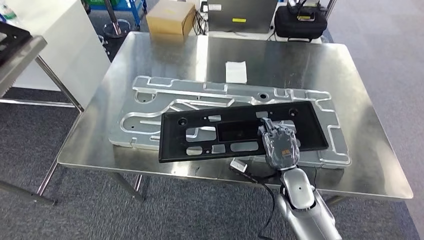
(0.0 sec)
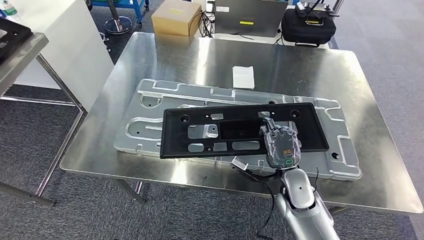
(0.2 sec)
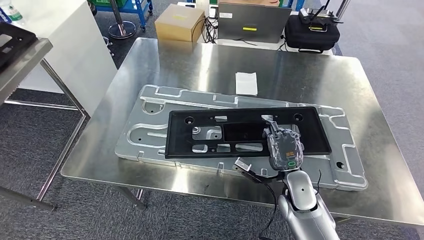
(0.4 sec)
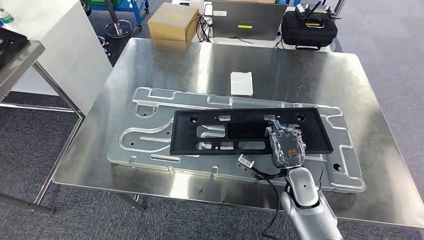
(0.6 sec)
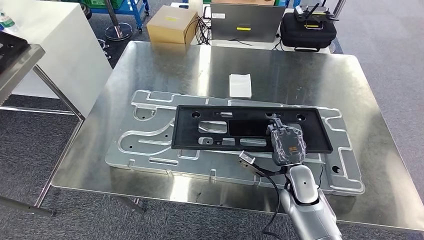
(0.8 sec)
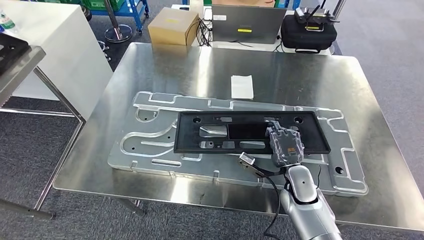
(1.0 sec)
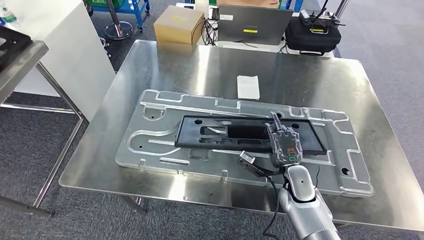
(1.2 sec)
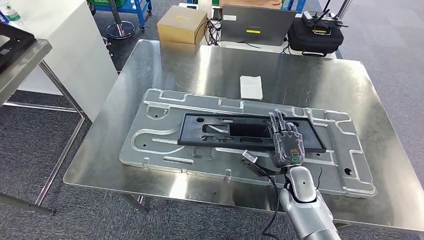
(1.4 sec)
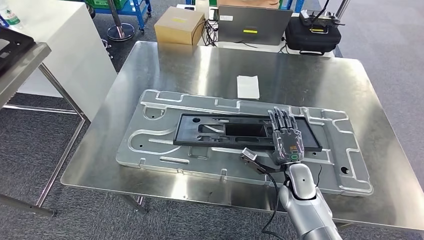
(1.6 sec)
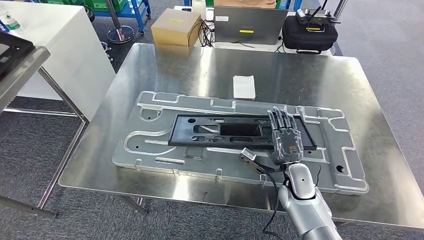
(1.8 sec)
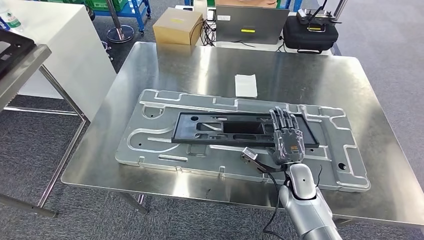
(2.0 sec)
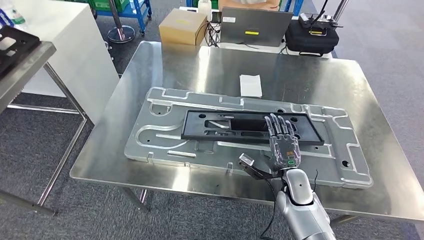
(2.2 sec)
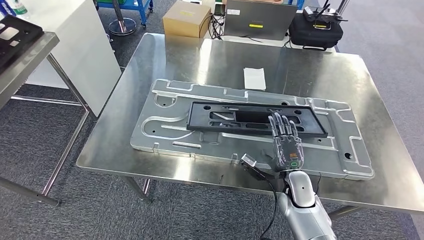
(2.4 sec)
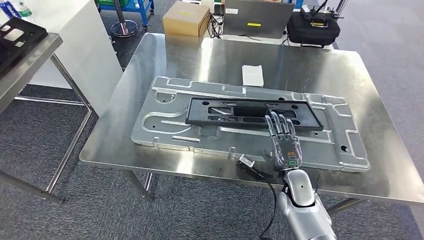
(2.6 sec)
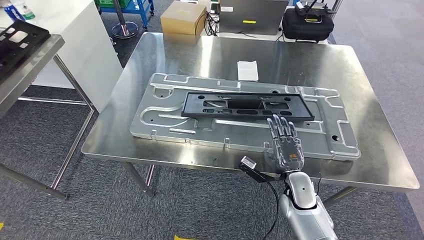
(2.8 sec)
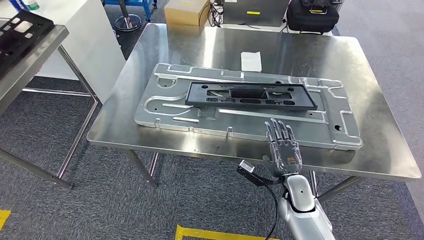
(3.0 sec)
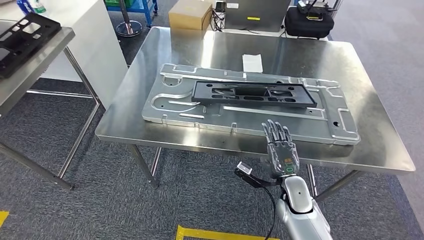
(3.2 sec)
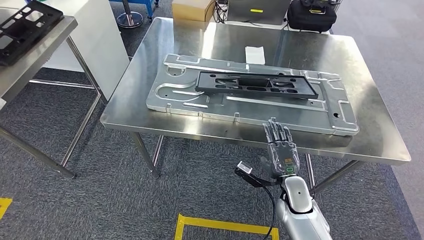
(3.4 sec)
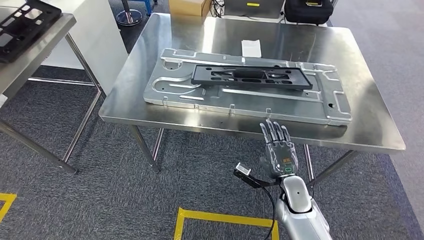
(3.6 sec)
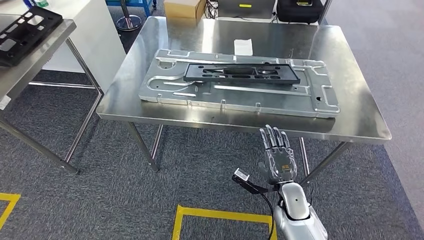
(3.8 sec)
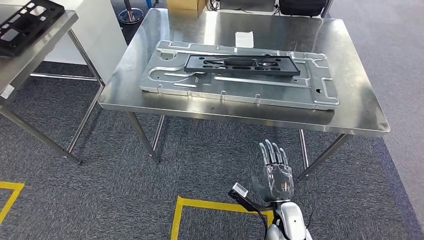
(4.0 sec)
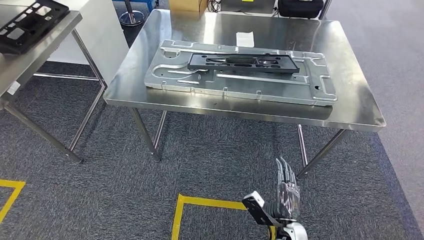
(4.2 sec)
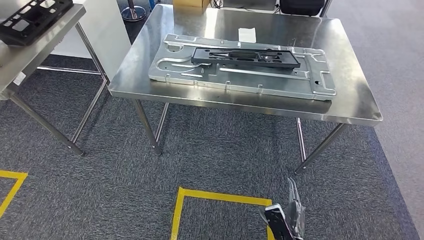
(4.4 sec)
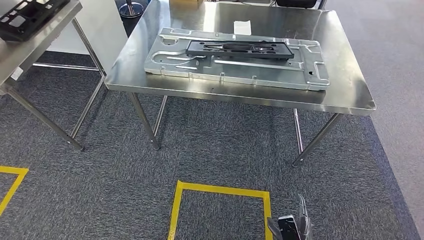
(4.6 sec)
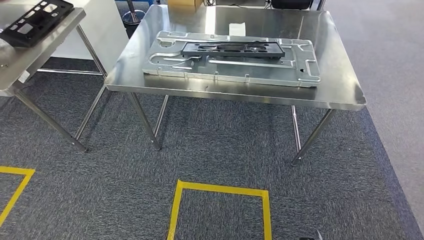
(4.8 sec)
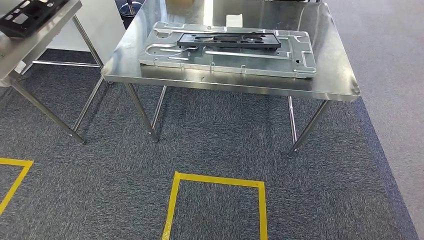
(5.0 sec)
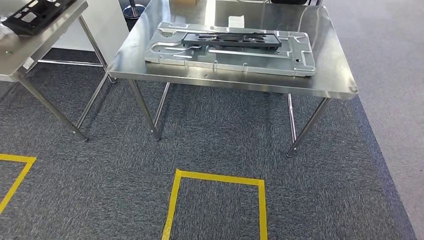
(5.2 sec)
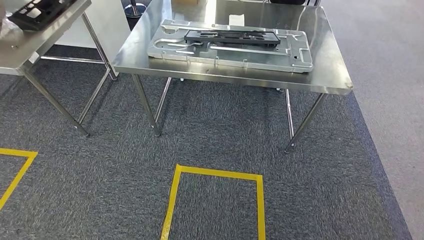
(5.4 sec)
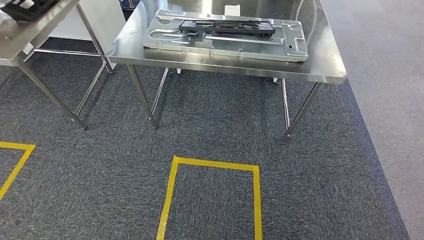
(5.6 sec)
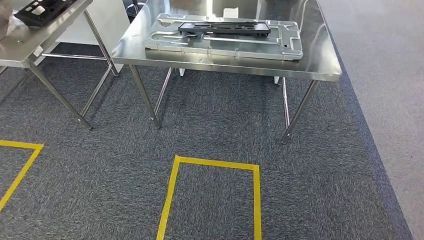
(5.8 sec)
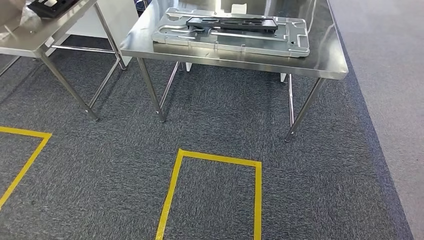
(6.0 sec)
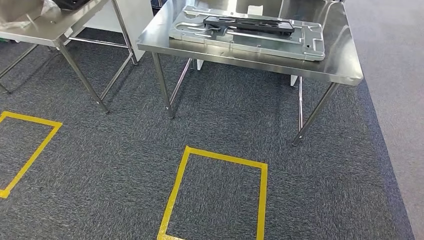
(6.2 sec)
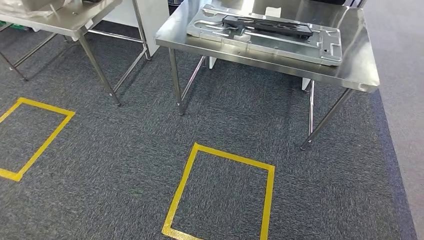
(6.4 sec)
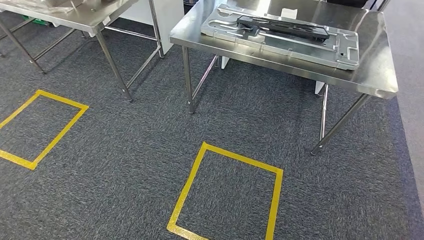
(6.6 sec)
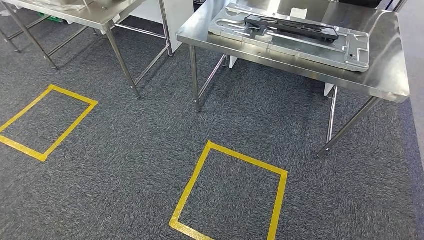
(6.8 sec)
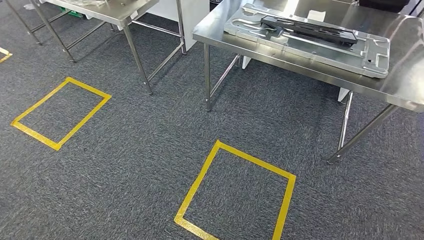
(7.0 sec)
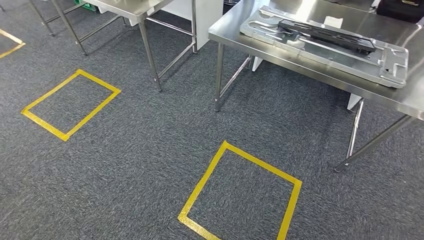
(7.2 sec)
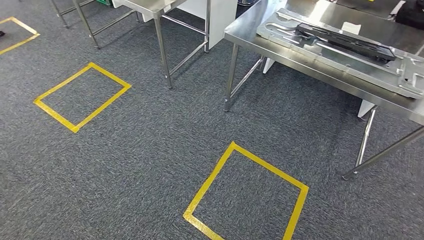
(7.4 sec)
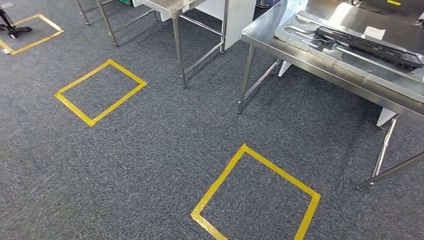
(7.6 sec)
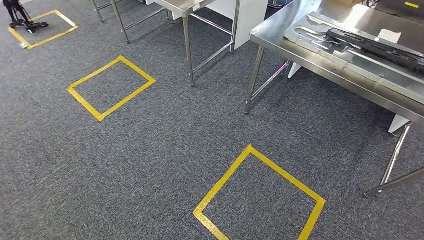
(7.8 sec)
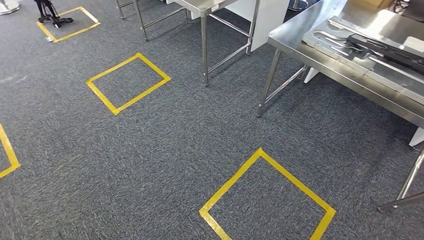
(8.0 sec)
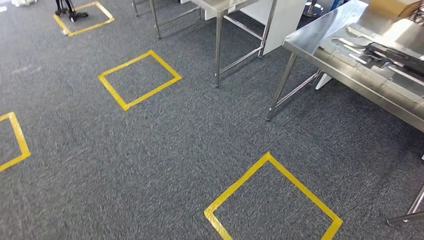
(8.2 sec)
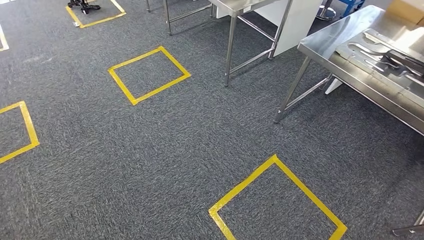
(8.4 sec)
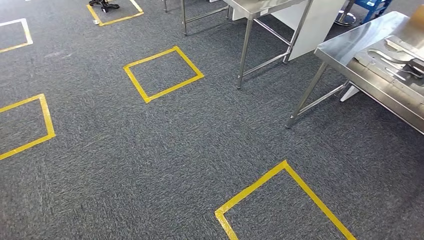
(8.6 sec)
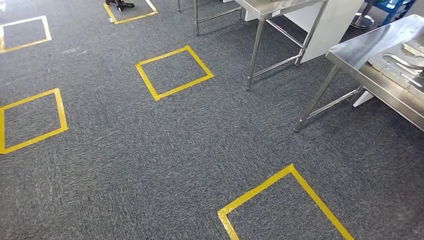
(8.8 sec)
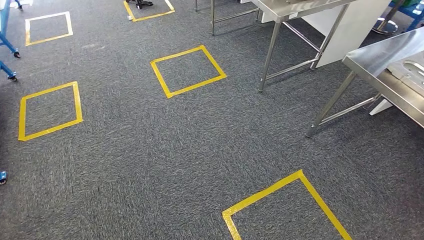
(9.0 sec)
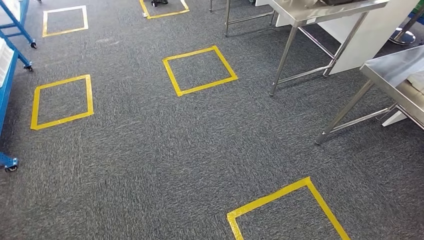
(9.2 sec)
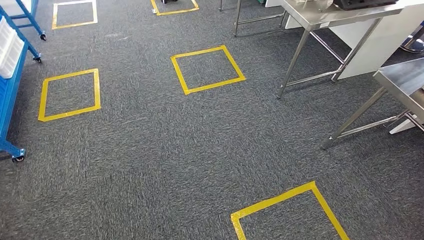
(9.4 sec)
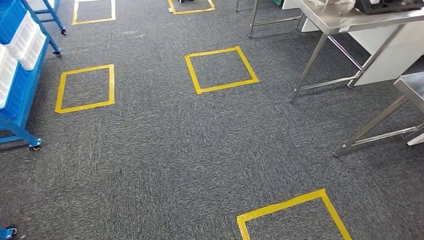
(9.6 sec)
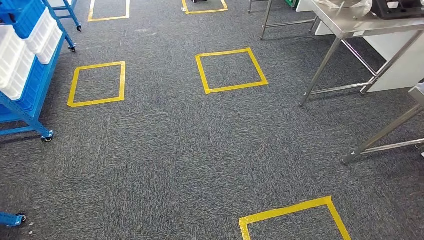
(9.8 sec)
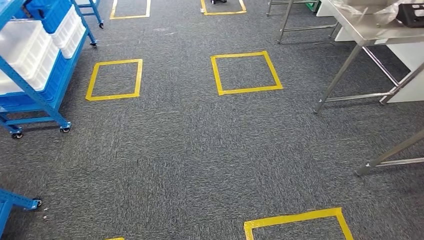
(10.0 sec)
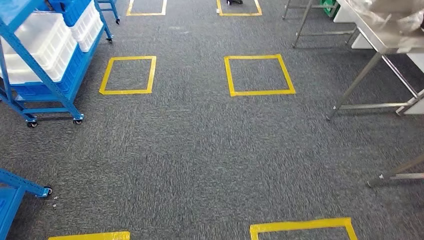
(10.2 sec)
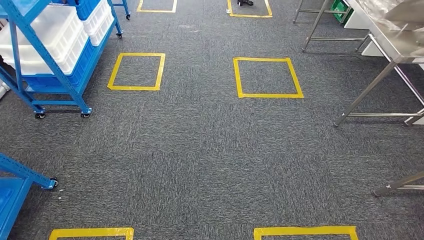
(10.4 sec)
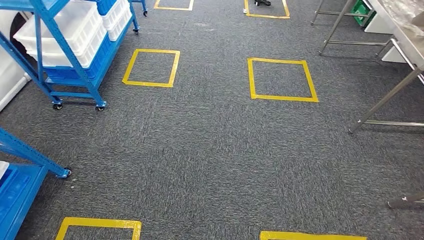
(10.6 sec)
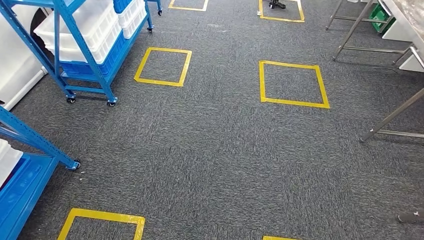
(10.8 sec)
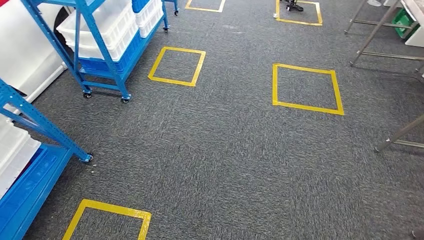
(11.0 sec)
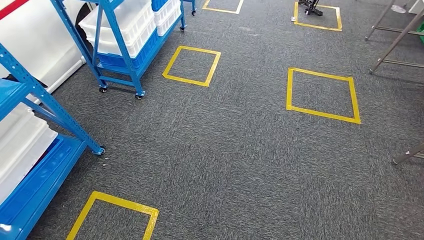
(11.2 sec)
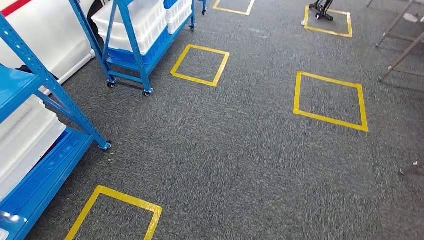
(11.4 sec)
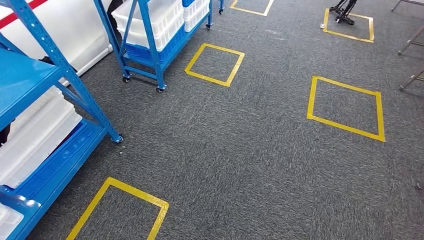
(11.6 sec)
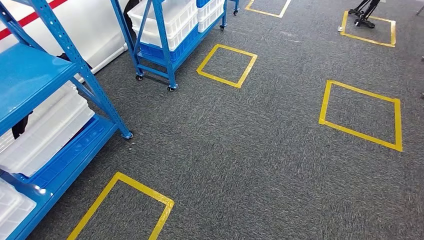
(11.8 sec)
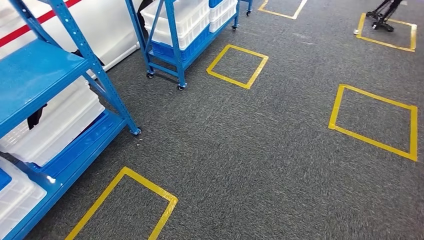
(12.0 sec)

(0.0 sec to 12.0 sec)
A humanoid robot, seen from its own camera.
Step, 0.0 sec - 6.0 sec: Insert the large material into the corresponding slot on the workbench.

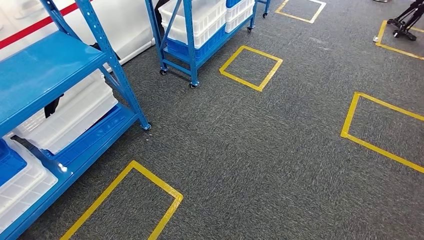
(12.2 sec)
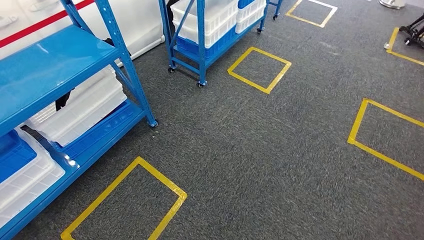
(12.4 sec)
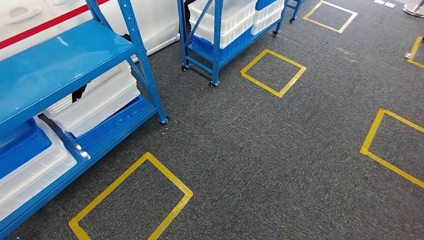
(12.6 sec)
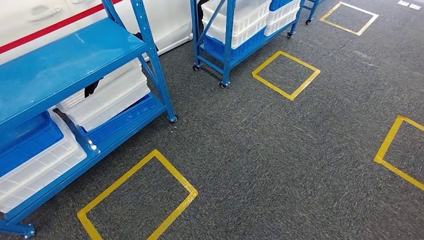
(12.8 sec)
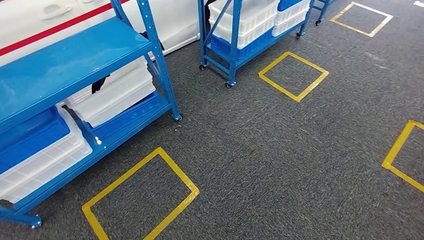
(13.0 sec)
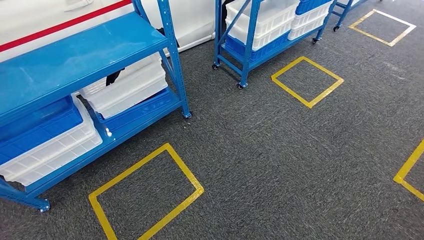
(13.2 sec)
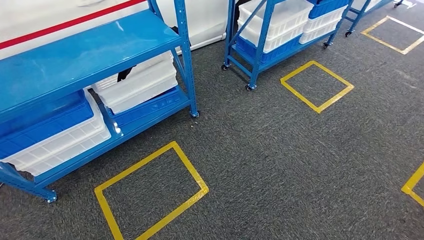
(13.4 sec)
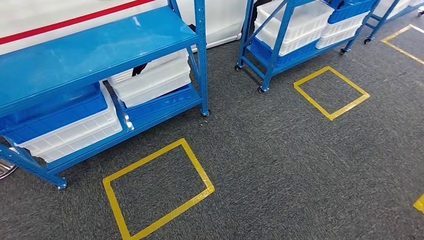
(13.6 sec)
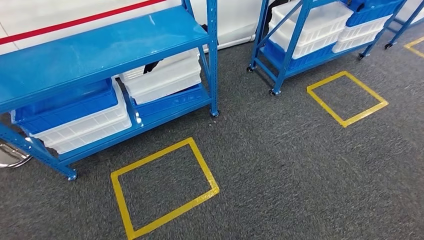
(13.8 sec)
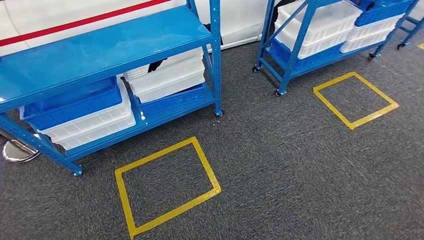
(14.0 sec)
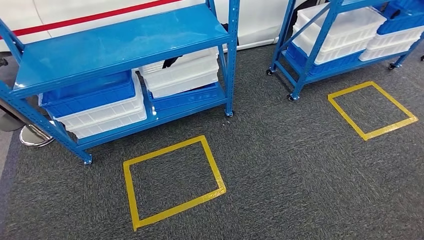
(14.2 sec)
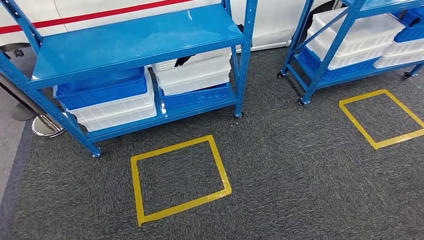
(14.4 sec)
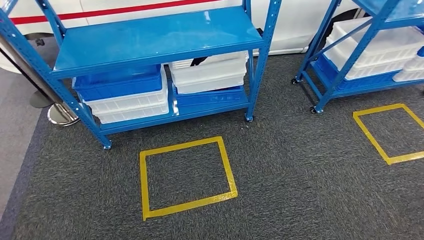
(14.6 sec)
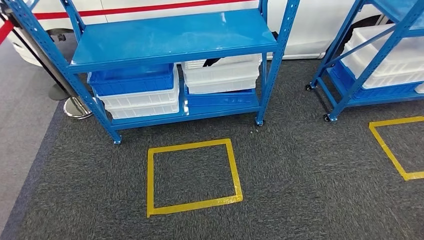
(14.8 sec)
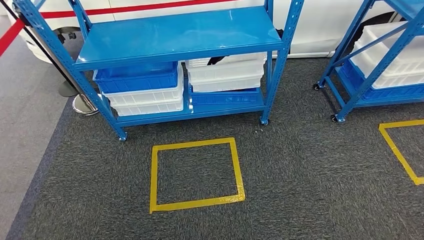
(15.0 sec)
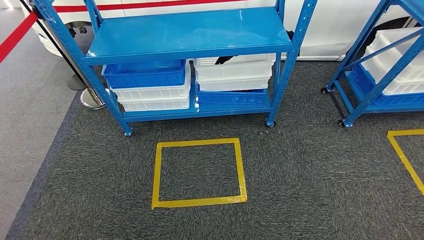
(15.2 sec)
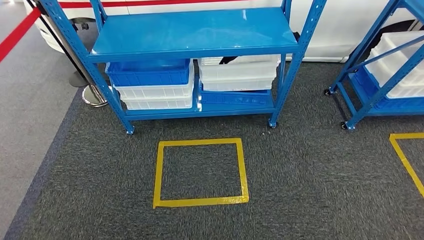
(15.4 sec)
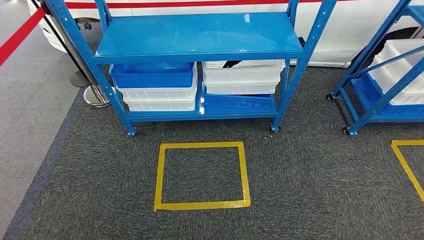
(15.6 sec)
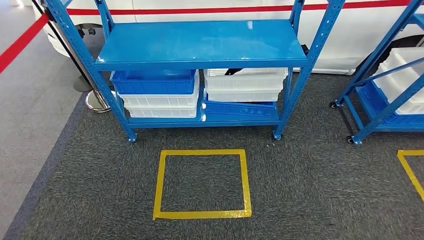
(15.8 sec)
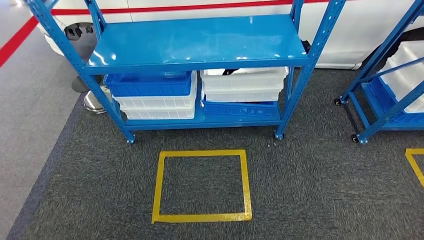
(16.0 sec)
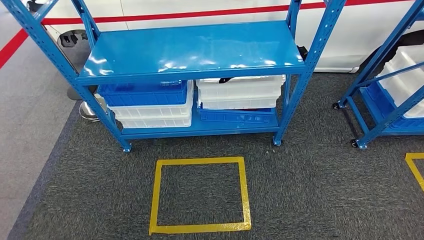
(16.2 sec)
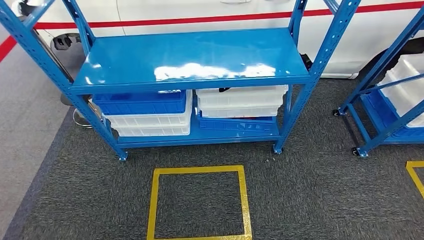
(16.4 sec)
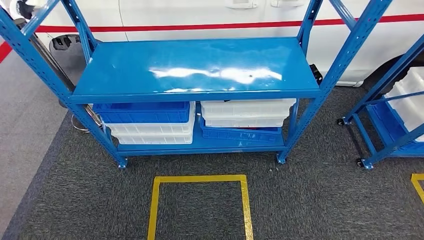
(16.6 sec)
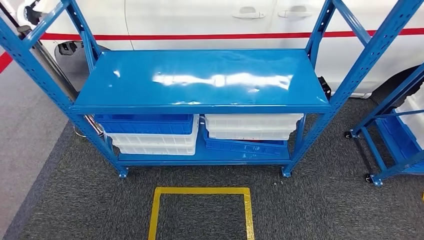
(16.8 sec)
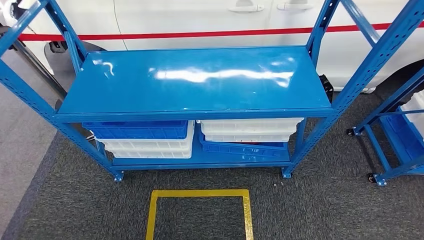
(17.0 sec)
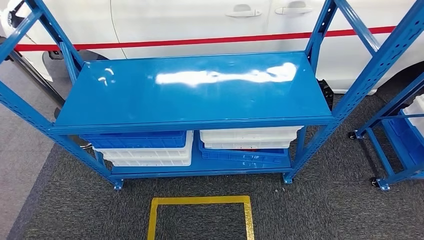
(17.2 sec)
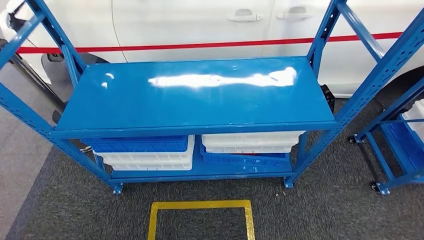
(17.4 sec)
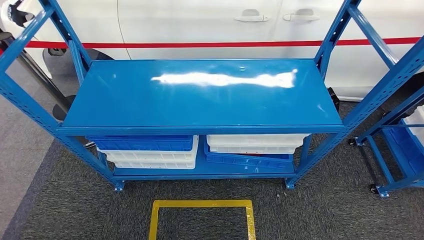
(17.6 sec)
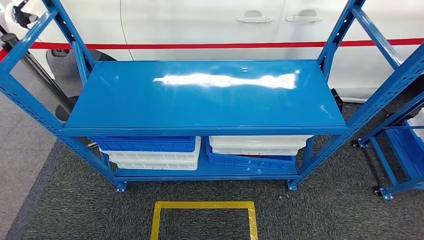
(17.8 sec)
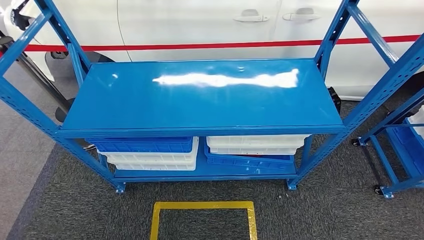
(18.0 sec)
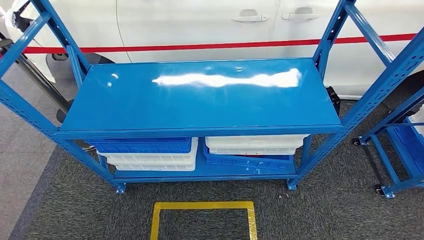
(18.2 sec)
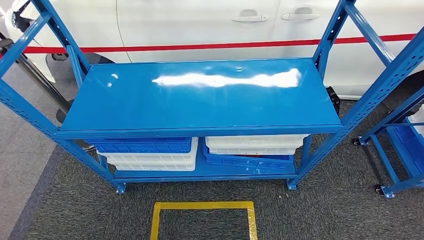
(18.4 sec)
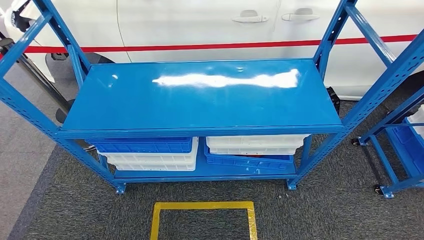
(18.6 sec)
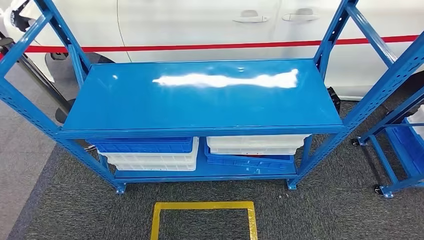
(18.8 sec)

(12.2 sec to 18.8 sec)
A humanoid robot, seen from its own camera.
Step, 12.2 sec - 18.6 sec: Move to the initial position of the shelf.
